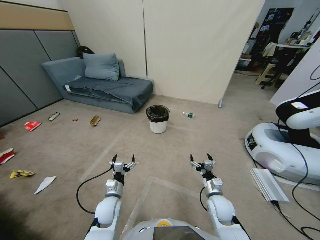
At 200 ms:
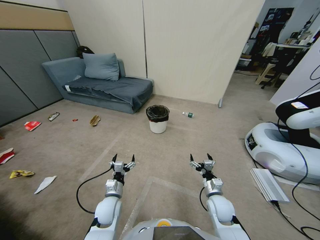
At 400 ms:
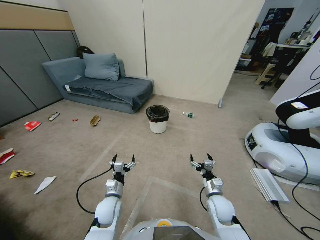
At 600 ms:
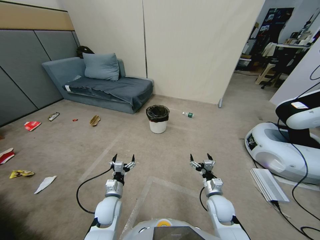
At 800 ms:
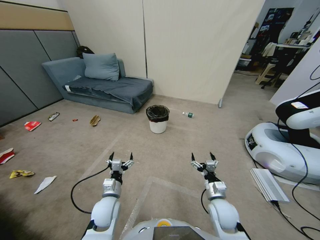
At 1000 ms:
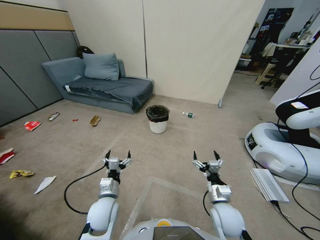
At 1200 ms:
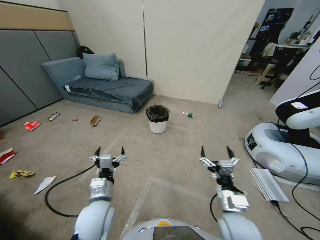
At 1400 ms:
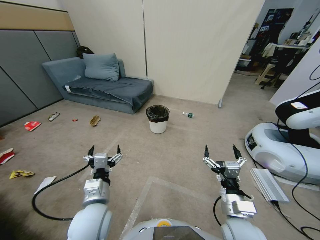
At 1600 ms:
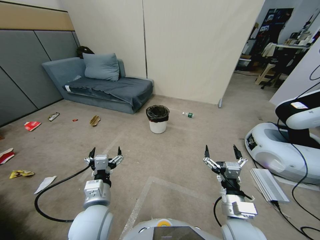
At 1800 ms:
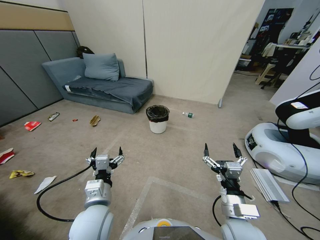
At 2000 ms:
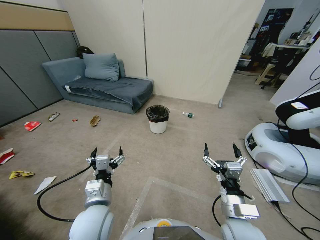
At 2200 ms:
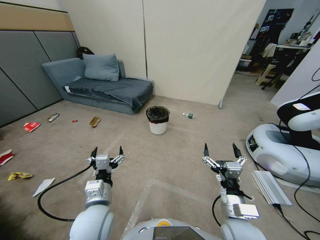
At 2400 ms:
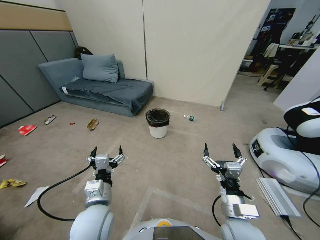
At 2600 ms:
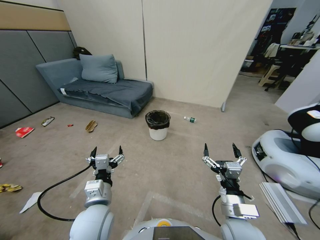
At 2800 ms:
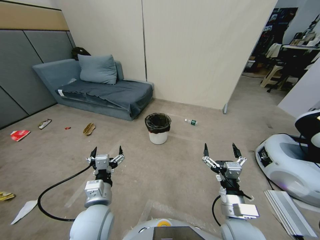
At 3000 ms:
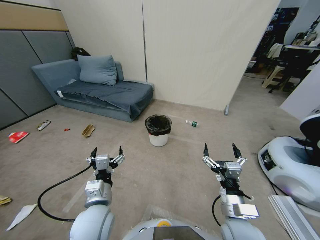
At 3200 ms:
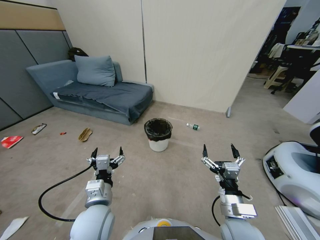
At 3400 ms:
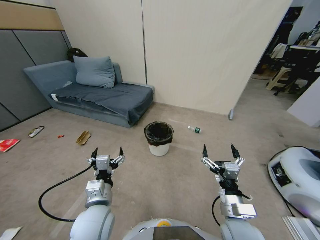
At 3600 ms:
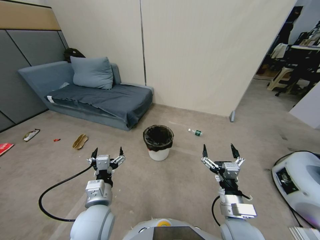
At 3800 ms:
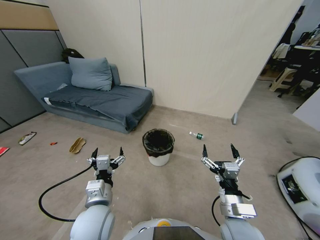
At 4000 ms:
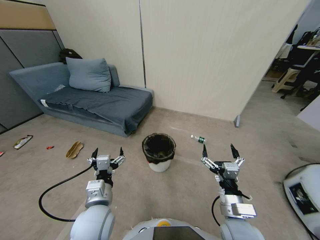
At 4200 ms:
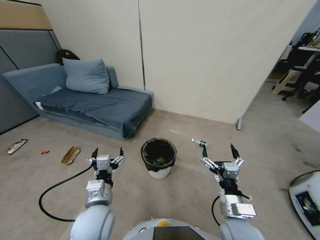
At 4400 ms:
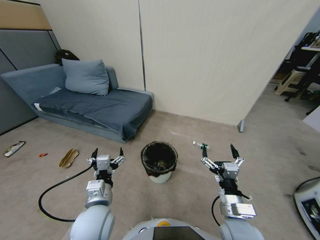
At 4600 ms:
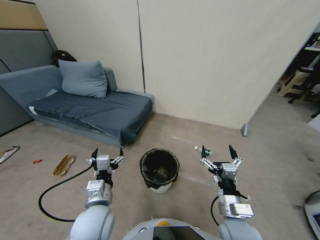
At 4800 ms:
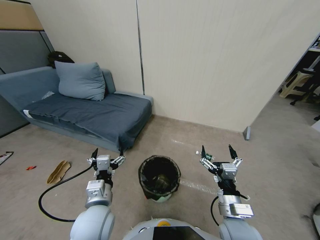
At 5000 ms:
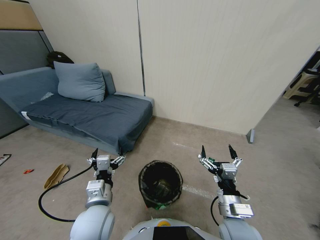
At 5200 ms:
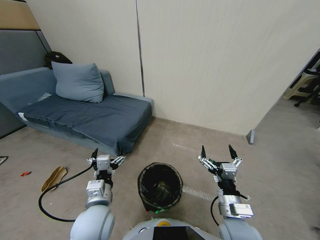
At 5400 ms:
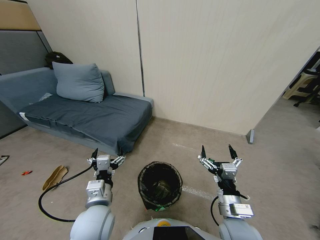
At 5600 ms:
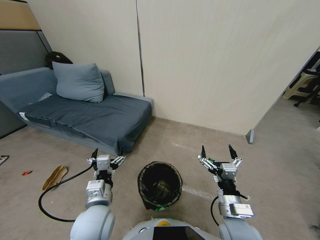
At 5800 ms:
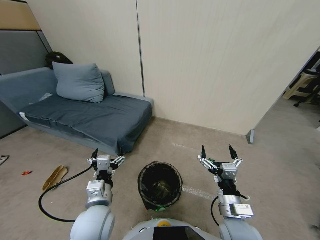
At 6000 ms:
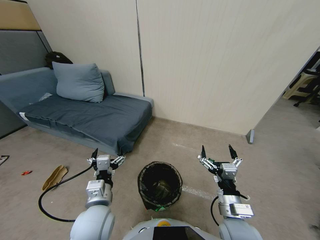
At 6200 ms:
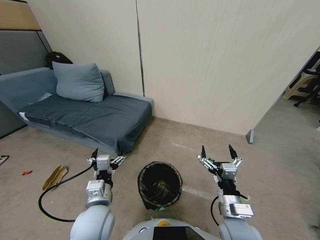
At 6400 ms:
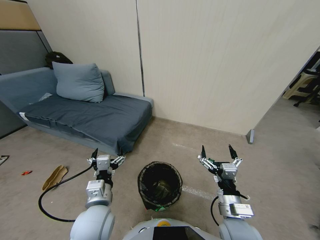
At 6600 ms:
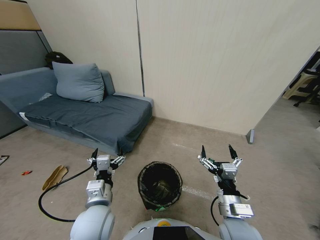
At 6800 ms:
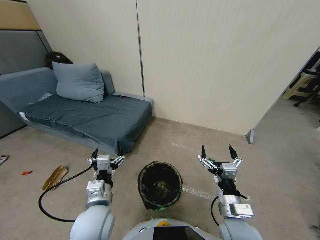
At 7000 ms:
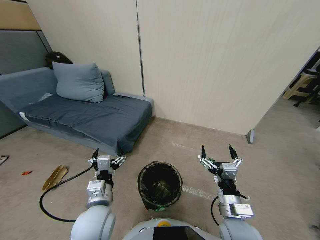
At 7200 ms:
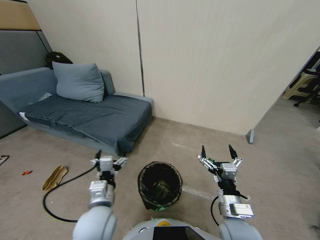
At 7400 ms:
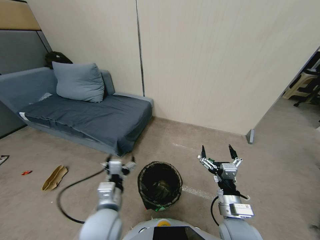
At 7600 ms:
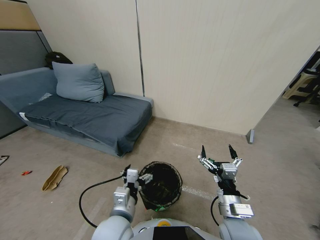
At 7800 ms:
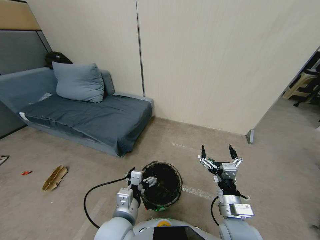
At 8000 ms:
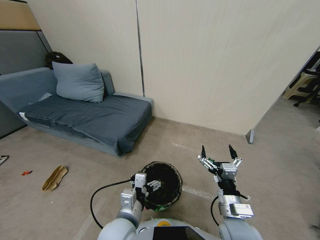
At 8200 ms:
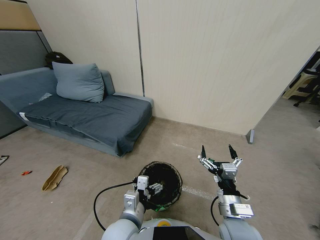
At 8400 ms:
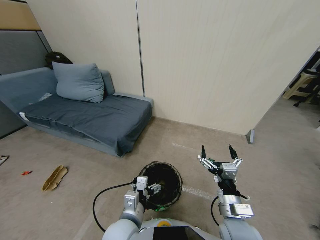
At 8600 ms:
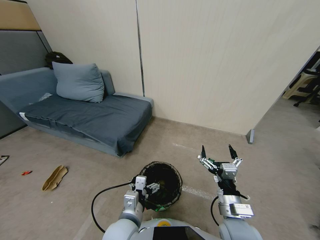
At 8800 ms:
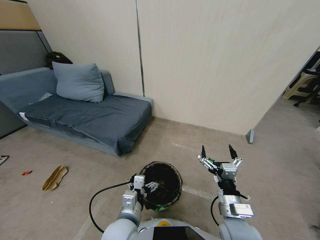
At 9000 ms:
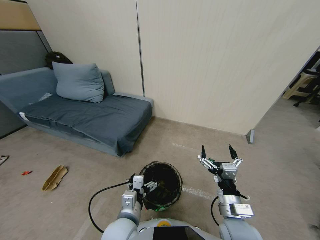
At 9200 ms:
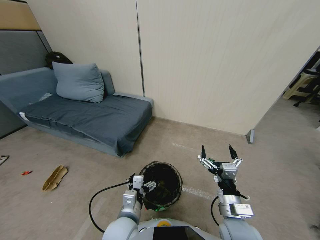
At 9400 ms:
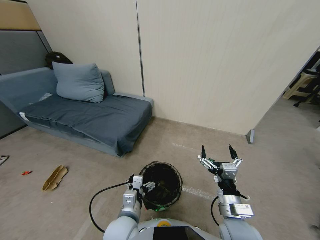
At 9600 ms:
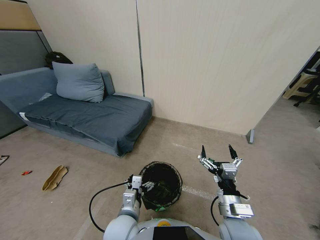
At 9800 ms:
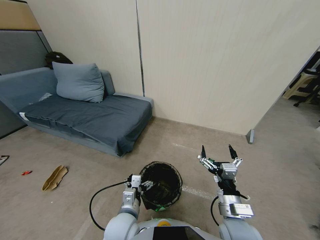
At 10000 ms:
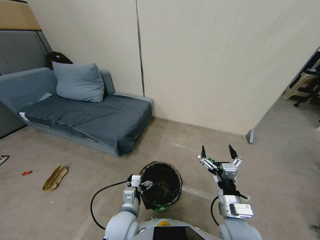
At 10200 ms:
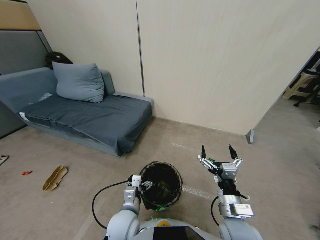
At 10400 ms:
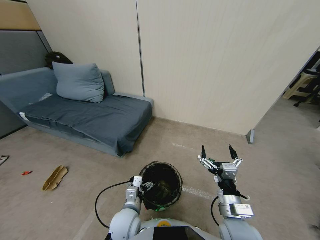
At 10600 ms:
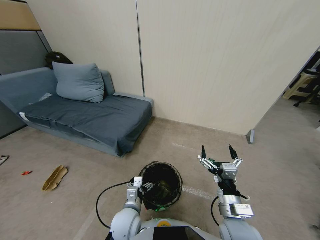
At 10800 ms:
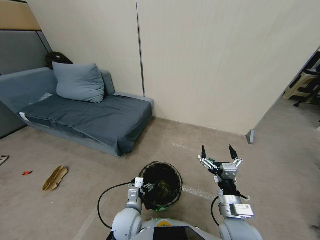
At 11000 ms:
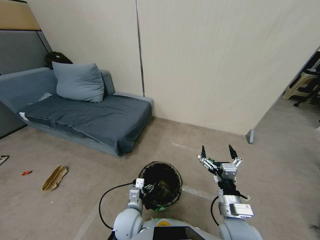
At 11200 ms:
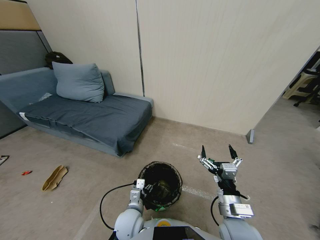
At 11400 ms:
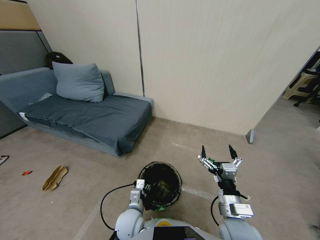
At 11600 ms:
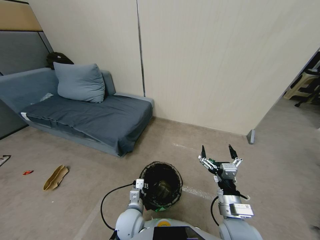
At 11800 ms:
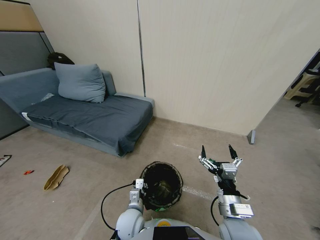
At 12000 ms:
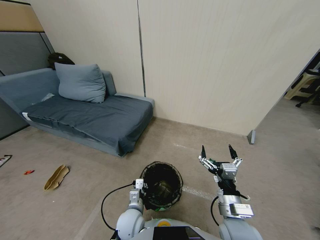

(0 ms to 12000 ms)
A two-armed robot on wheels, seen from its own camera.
Task of the whole recording: Pick up the trash bin, then pick up the garbage from the floor and place it into the trash bin.
6000 ms - 7600 ms: The left gripper is displaced to the right by approximately 5 cm.
7600 ms - 9000 ms: There are only small adjustments of the grippers.
9000 ms - 10400 ms: The left gripper is displaced downward by about 5 cm.
10400 ms - 12000 ms: The left gripper closes.

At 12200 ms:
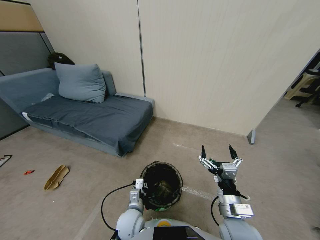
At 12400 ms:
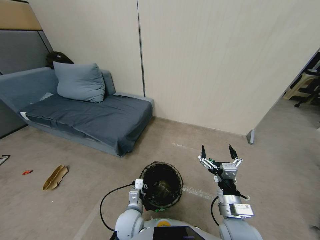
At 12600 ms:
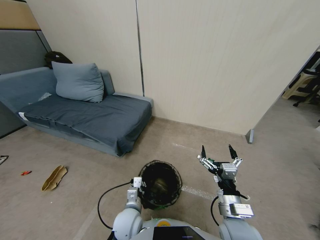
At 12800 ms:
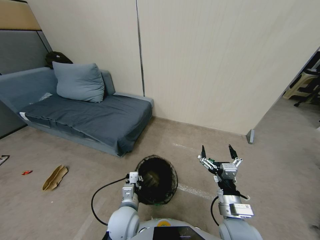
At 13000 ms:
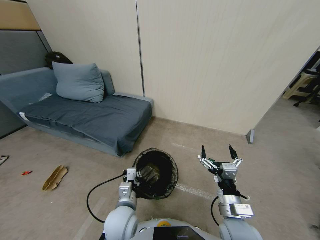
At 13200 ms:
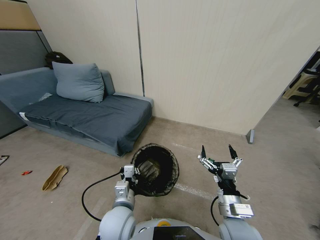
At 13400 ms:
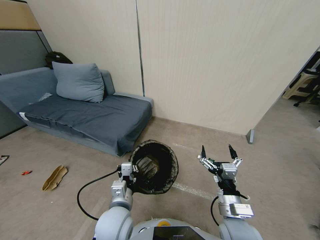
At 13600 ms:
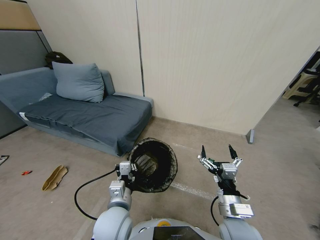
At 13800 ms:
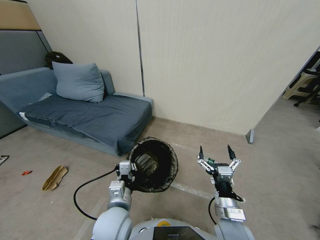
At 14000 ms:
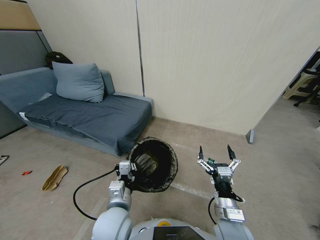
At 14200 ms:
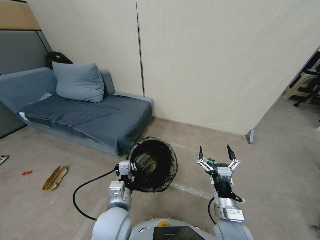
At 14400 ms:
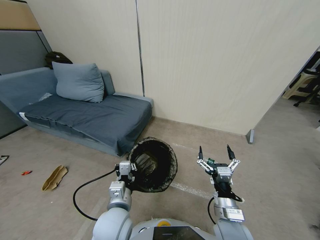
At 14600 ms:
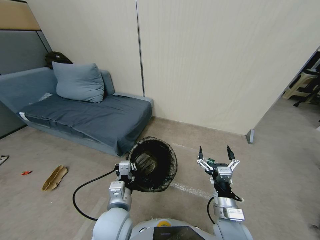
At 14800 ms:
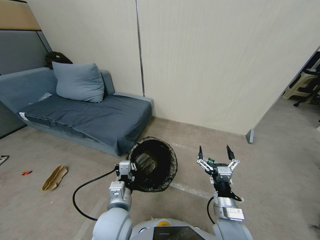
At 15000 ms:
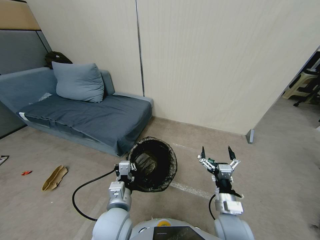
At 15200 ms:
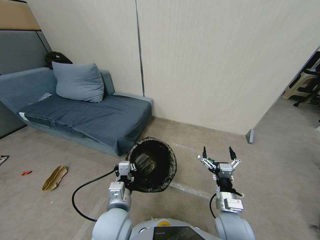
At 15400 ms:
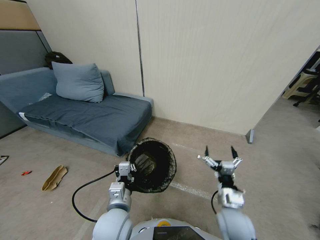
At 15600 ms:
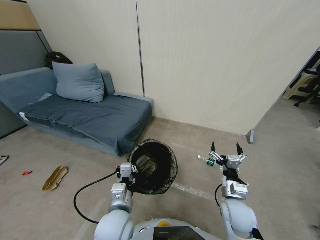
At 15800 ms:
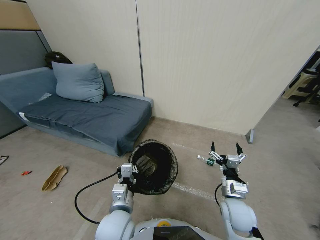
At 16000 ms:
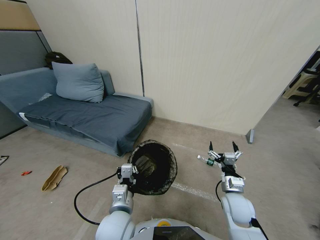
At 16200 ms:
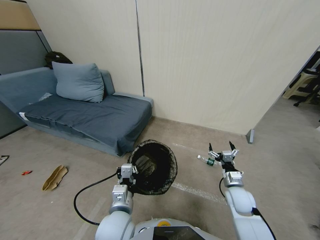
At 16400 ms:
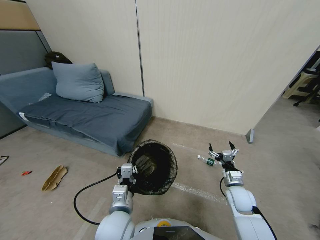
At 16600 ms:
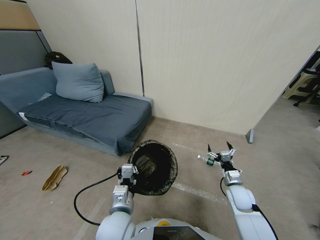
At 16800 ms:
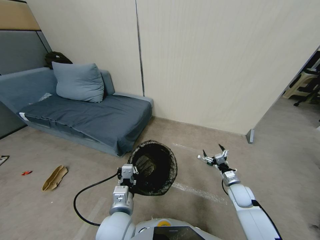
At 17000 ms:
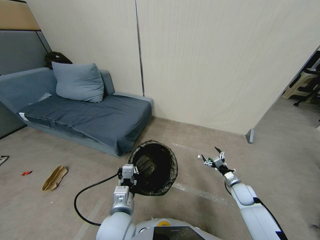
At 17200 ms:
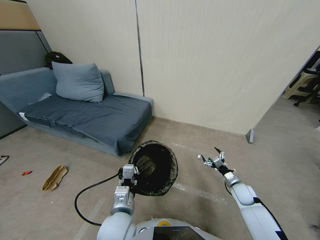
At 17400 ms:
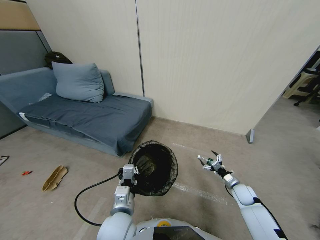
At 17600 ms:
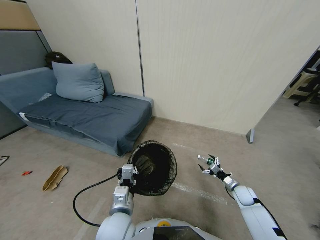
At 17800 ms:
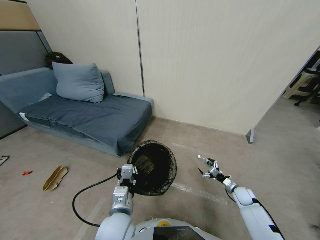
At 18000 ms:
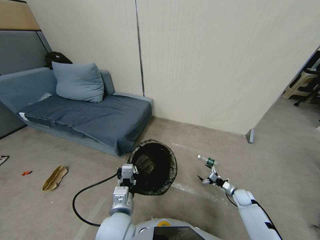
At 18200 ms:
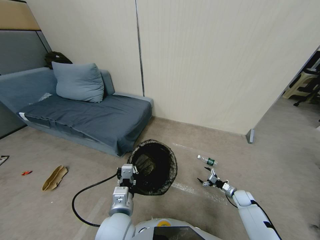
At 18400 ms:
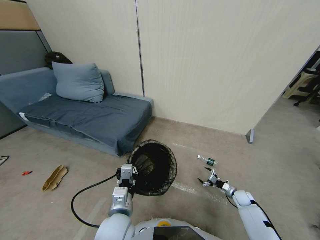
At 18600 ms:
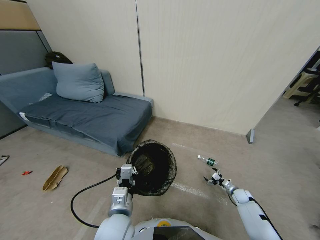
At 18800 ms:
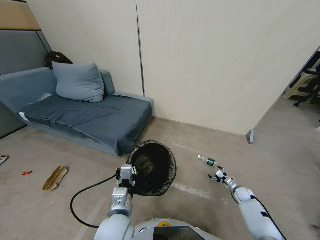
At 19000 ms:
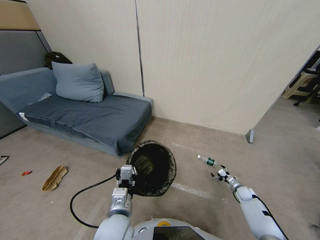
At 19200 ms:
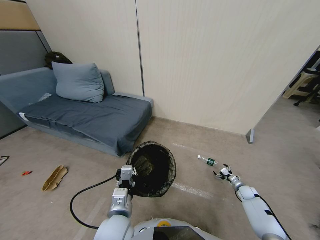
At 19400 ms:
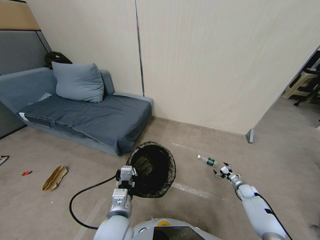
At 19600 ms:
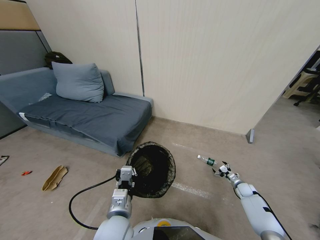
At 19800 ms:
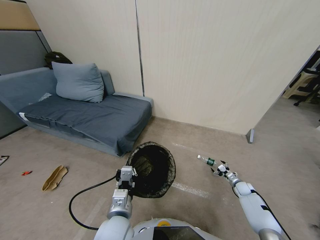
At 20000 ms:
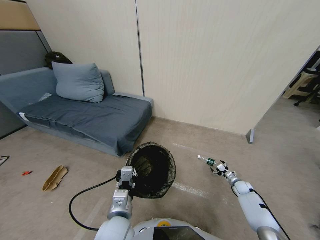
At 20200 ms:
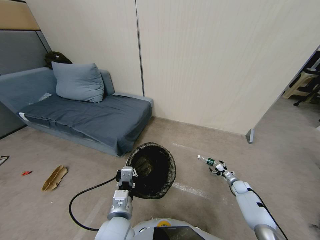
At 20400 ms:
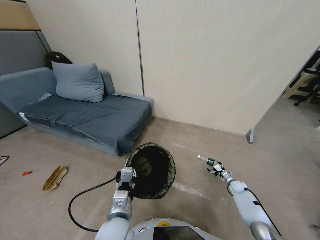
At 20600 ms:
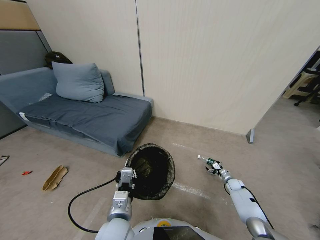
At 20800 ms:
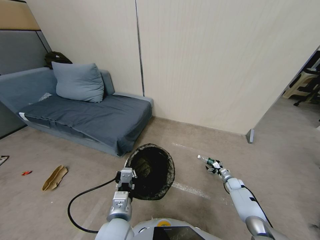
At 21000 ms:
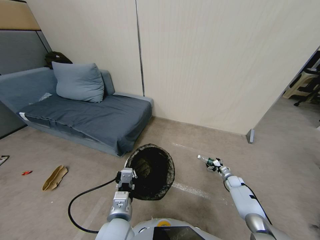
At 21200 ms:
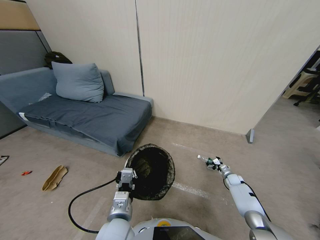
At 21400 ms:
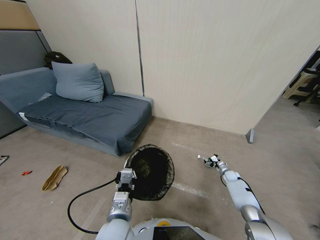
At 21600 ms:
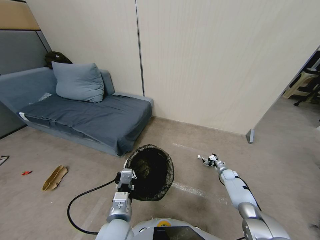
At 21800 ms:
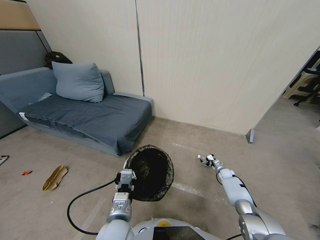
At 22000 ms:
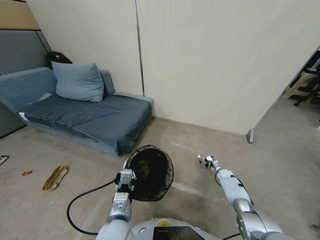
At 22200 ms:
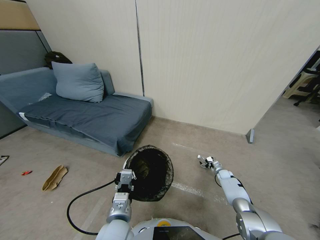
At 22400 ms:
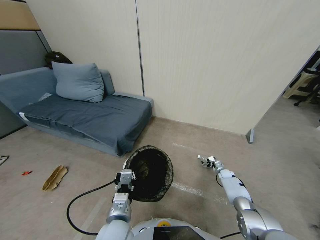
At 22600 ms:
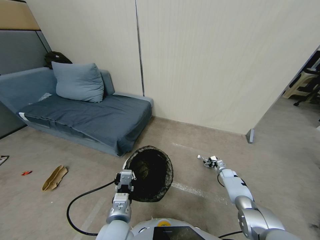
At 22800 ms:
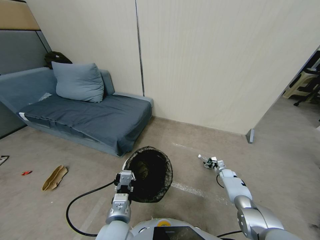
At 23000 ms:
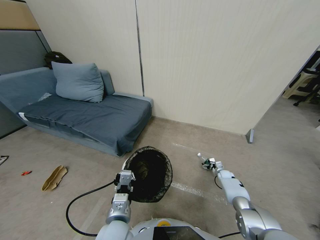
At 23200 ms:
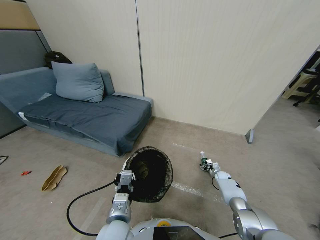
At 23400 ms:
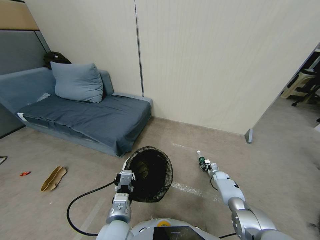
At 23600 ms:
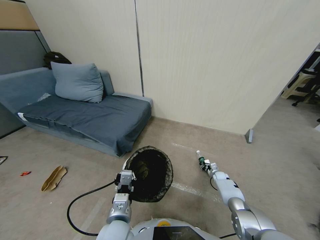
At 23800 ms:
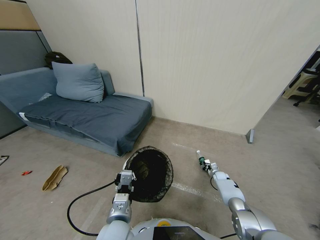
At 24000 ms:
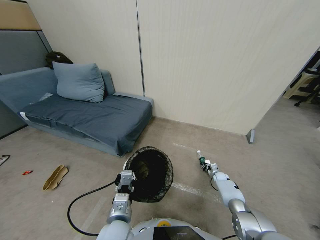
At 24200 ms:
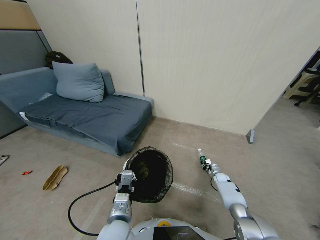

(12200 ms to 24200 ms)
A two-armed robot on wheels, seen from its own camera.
Task of the whole recording: Pick up the trash bin, then pick up the garbage from the floor and place it into the trash bin.
12200 ms - 13800 ms: The left gripper is displaced upward by some 15 cm.
13800 ms - 15200 ms: The grippers stay close to where they were, moving slightly.
15200 ms - 16600 ms: The right gripper shifts roughly 20 cm to the right, forward and downward.
16600 ms - 18200 ms: The right gripper travels downward and to the right by some 15 cm.
18200 ms - 19800 ms: The right gripper shifts roughly 5 cm forward.
19800 ms - 21200 ms: The right gripper heads forward, covering some 5 cm.
21200 ms - 22600 ms: The grippers make only small movements.
22600 ms - 24200 ms: The right gripper moves to the left, about 5 cm, and closes.
